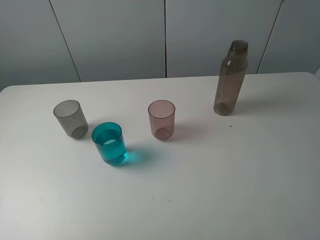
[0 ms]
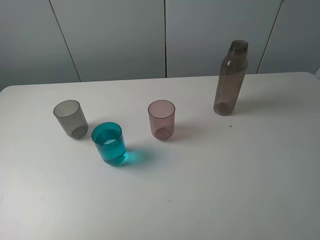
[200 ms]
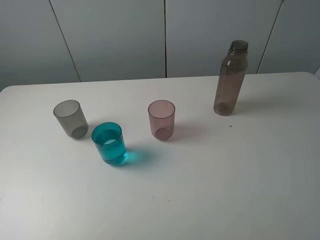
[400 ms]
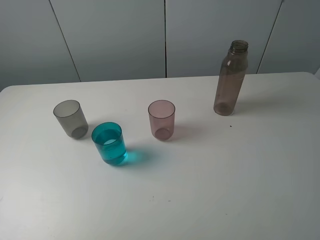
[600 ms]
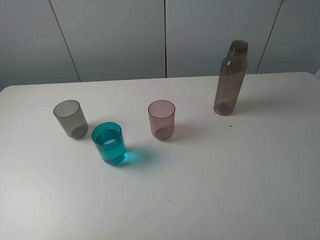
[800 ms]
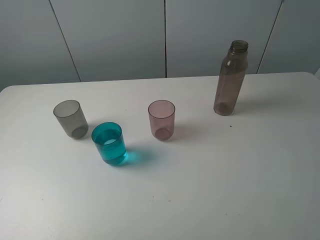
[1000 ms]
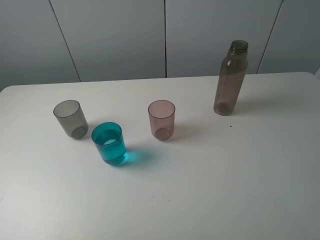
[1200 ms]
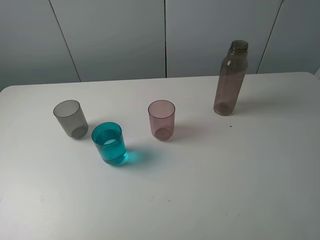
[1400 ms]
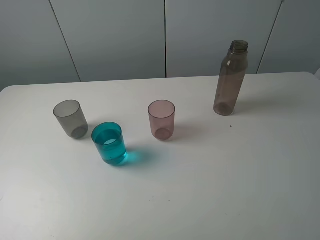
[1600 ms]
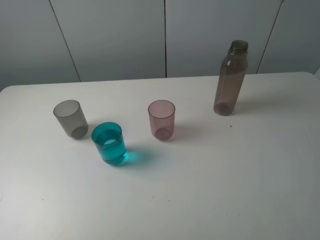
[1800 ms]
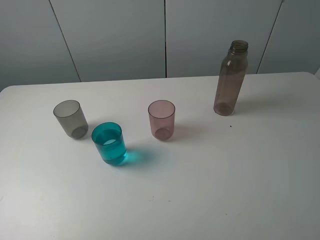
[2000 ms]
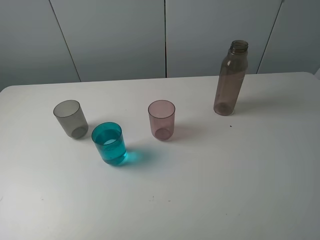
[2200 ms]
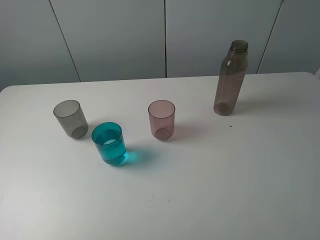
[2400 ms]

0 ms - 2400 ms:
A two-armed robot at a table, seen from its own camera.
Task of the whole recording: pick up the bottle filled with water and pour water into the middle cup of the three cups.
1200 ms - 2400 ms: Both grippers stay put.

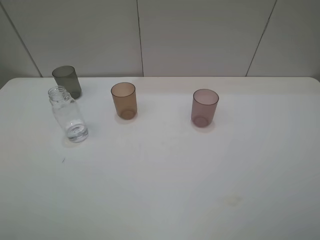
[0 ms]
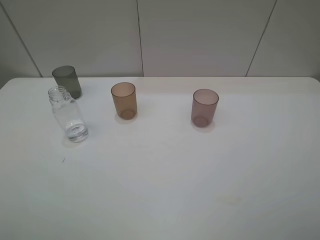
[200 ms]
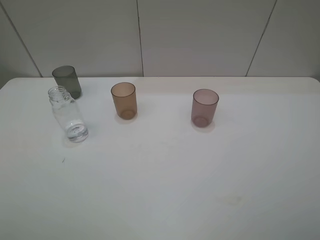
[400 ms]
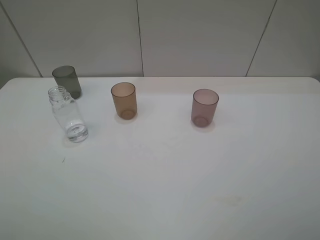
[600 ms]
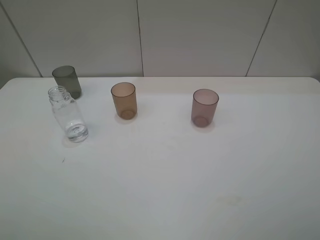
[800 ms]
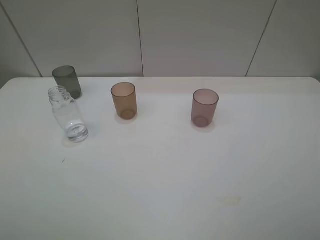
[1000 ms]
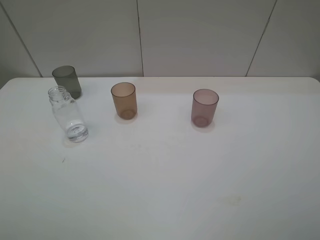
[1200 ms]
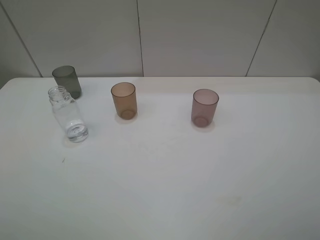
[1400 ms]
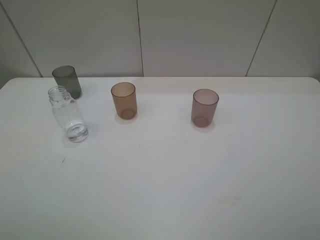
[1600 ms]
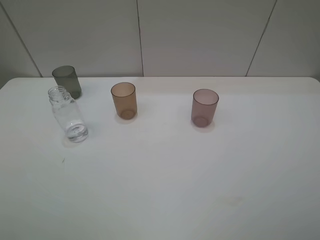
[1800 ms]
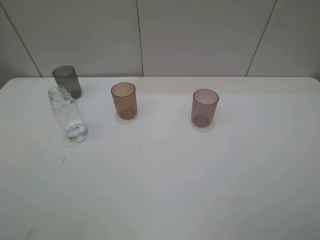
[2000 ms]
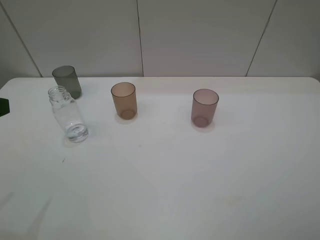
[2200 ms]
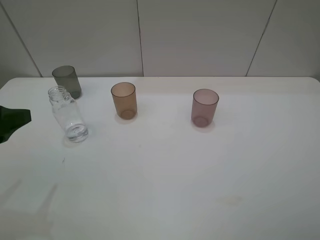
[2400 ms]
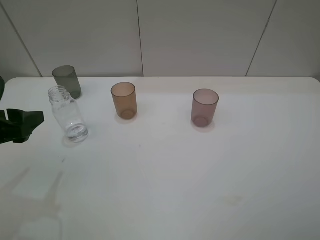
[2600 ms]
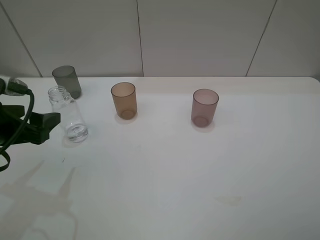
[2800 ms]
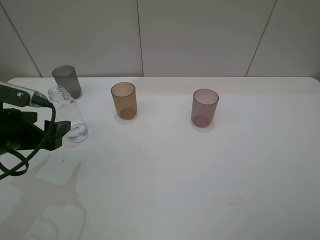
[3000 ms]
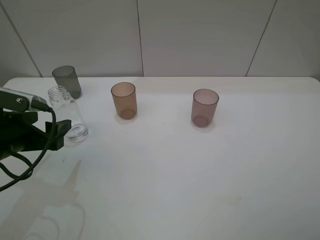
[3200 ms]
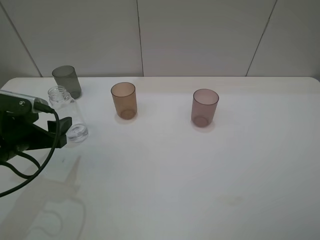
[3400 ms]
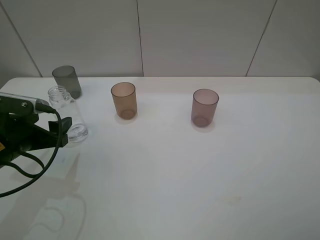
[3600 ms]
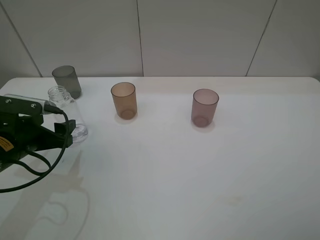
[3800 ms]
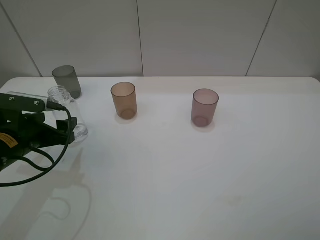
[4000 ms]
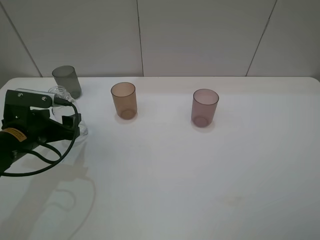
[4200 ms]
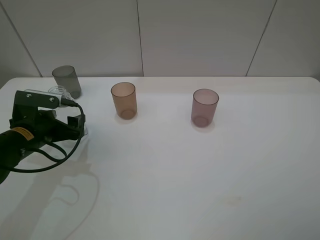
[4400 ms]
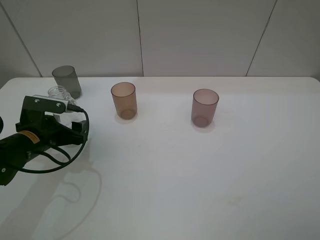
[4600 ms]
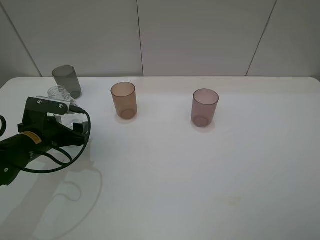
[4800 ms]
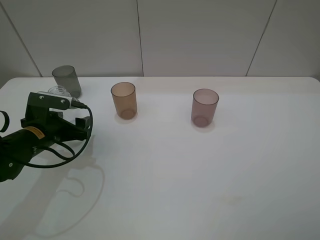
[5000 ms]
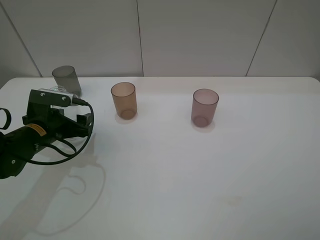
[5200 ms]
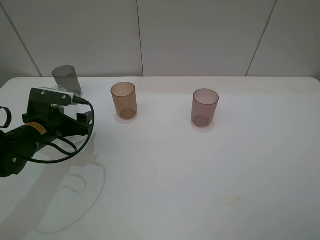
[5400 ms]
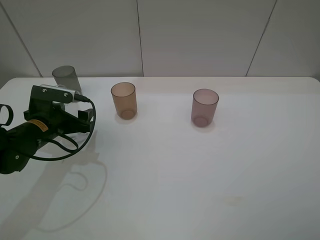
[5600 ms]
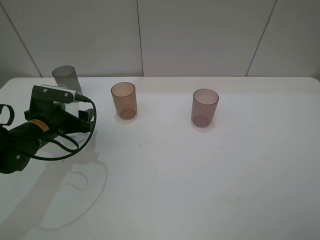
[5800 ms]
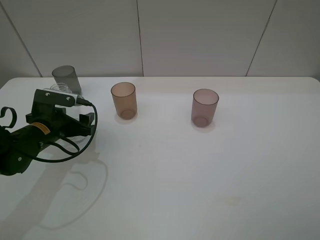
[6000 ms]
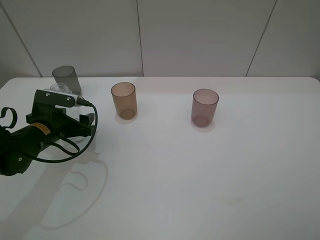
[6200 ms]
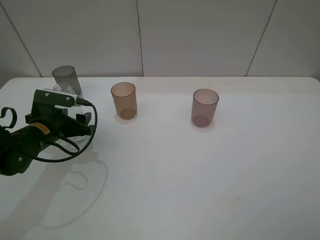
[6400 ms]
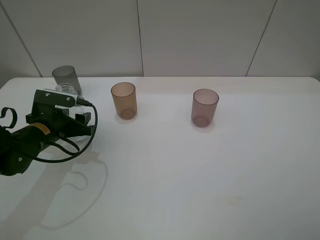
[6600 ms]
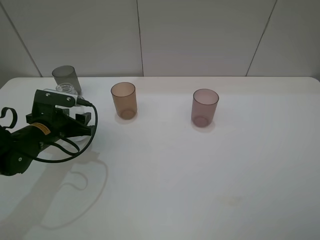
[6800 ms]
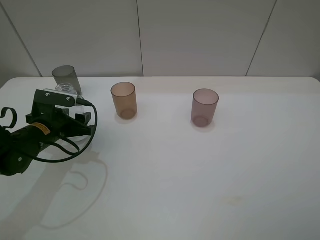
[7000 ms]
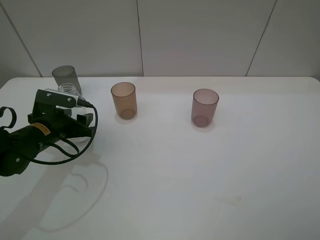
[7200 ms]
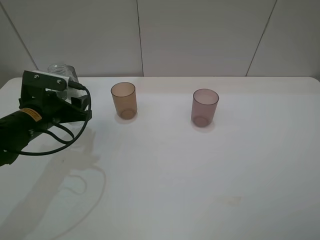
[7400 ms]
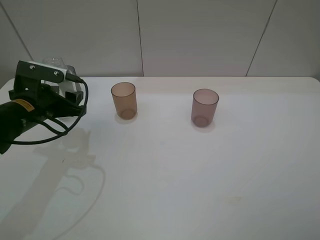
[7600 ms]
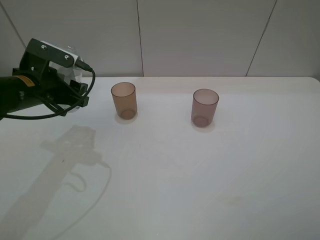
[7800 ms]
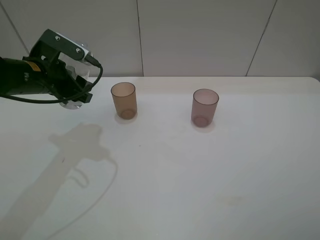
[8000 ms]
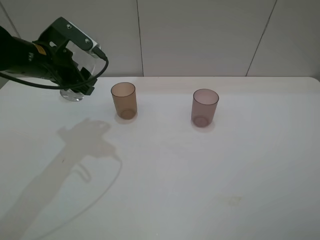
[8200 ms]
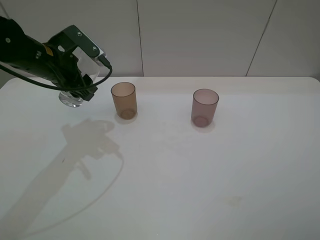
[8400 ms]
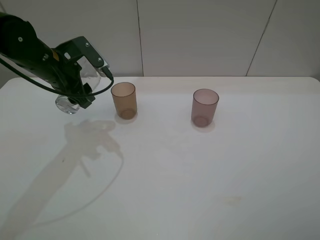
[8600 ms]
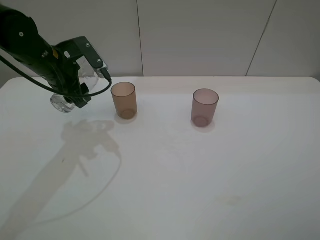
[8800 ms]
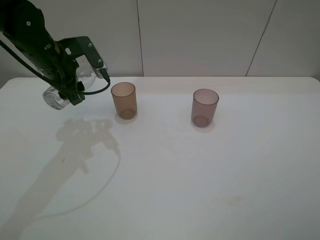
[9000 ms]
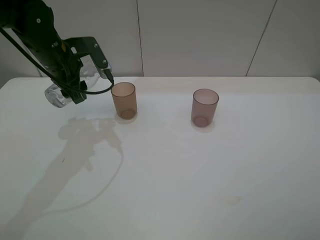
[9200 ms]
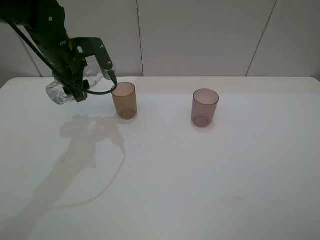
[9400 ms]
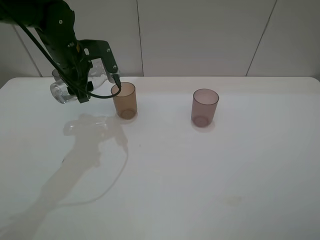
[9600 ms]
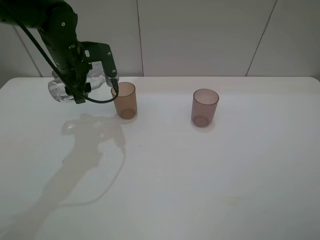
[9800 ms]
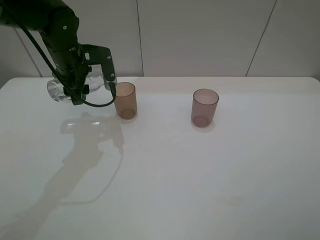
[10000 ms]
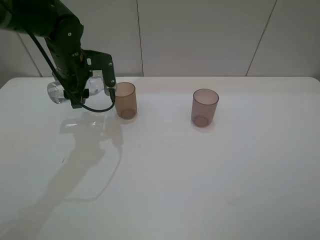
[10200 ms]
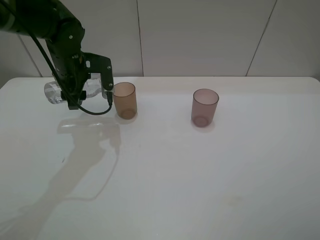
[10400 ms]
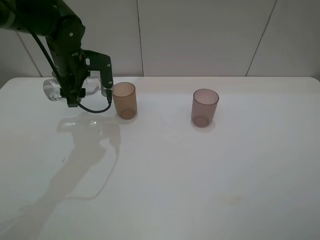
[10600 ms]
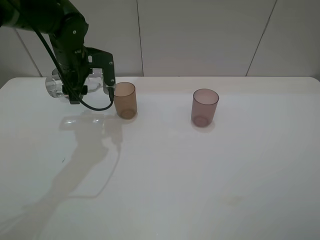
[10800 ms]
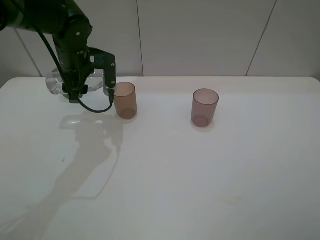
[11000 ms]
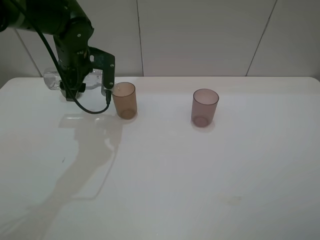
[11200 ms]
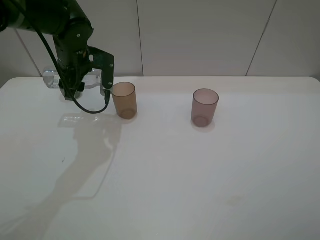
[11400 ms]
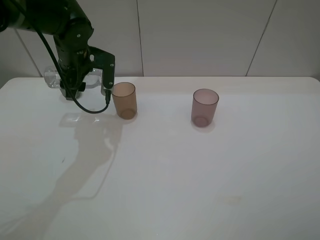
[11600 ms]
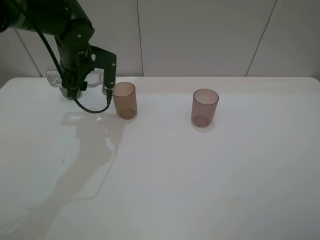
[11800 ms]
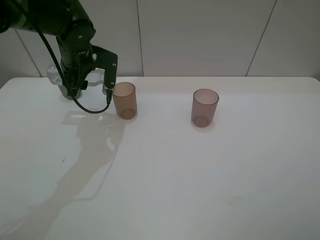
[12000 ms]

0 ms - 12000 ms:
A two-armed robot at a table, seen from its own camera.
Task of the whole recording: pick up the bottle filled with water and pour water into the middle cup of the three cups.
Step, 0 ms - 6600 ms: Grasp the transparent bottle with the left gripper.
Step, 6800 ms - 9600 ms: Pour water from transparent bottle to brown cup with the left gripper.
1600 ms - 3000 ms: The left gripper moves forward and downward, approximately 20 cm.
3000 ms - 4400 ms: The left gripper moves downward and forward, roughly 10 cm.
4400 ms - 6000 ms: The grippers stay close to where they were, moving slightly.
6000 ms - 7600 ms: The left gripper heads upward, covering some 5 cm, and closes its fingers.
7600 ms - 9000 ms: The left gripper is displaced forward and upward by approximately 10 cm.
10400 ms - 12000 ms: The grippers stay close to where they were, moving slightly.

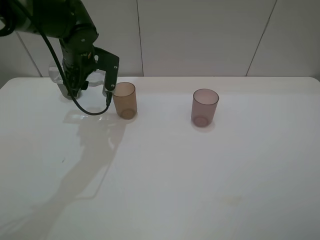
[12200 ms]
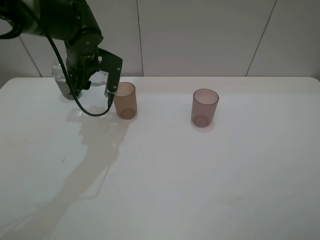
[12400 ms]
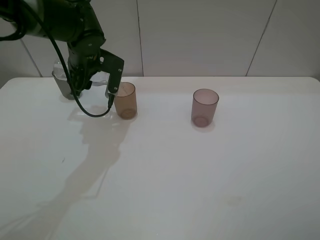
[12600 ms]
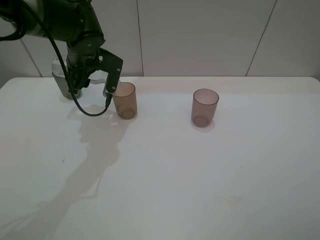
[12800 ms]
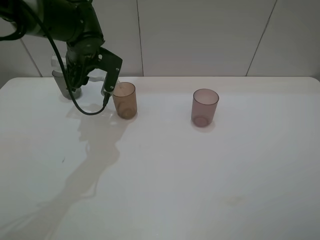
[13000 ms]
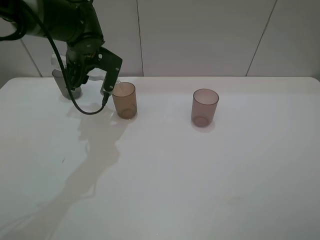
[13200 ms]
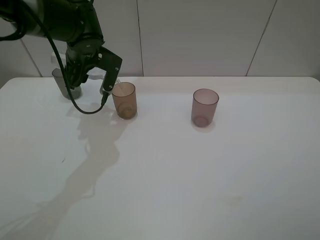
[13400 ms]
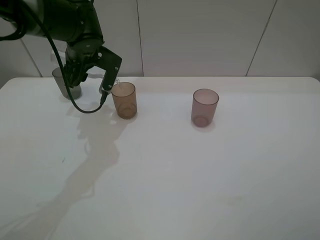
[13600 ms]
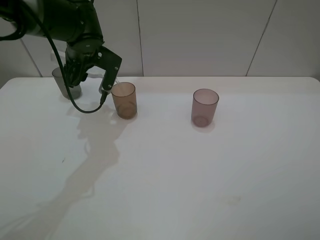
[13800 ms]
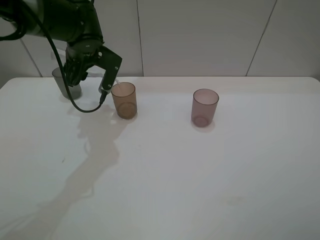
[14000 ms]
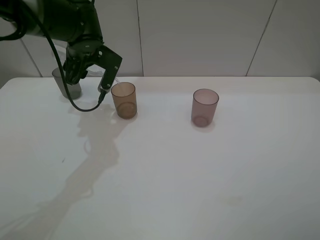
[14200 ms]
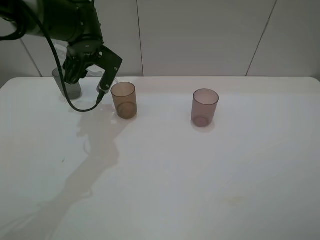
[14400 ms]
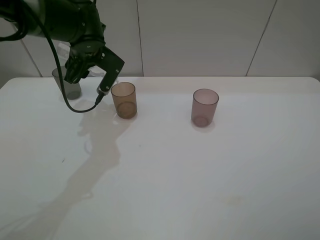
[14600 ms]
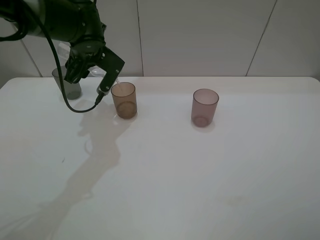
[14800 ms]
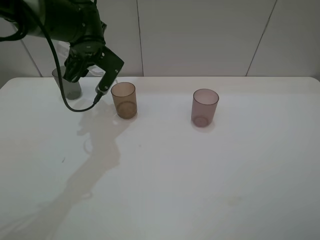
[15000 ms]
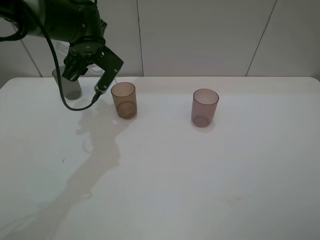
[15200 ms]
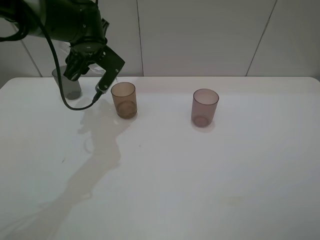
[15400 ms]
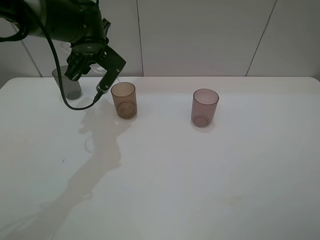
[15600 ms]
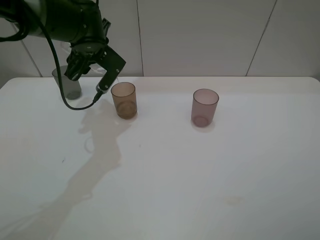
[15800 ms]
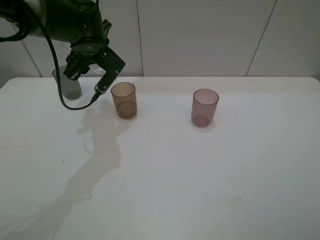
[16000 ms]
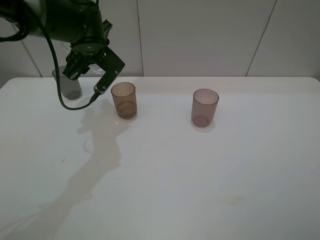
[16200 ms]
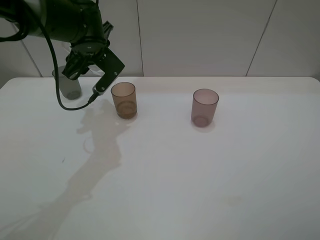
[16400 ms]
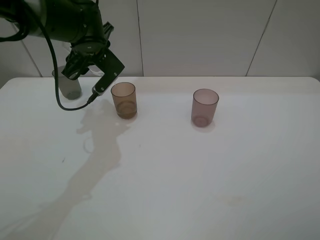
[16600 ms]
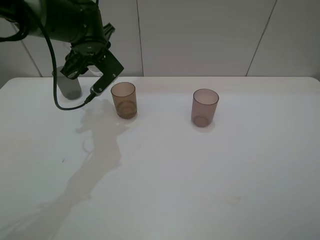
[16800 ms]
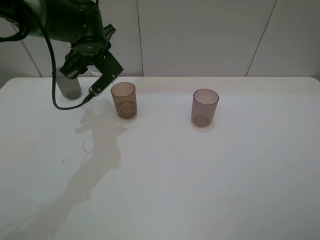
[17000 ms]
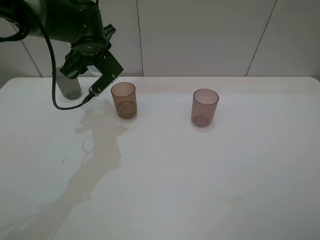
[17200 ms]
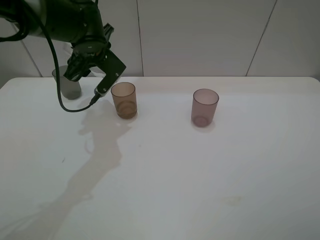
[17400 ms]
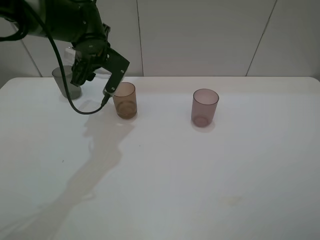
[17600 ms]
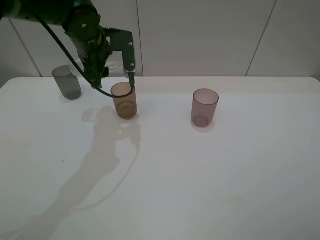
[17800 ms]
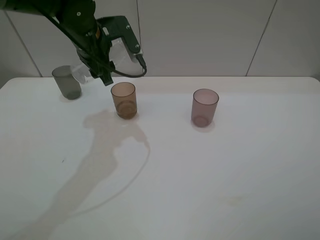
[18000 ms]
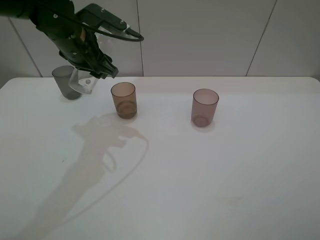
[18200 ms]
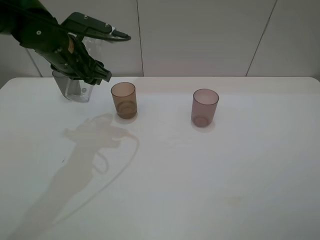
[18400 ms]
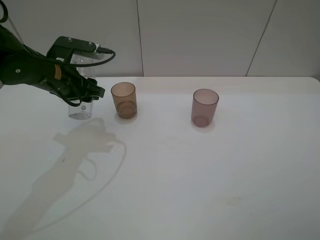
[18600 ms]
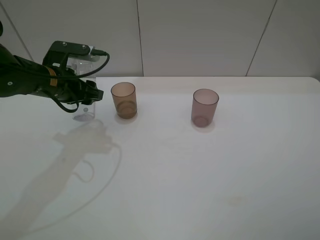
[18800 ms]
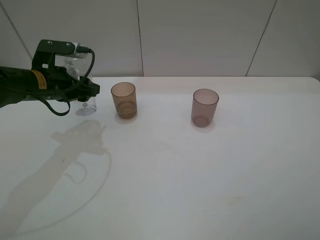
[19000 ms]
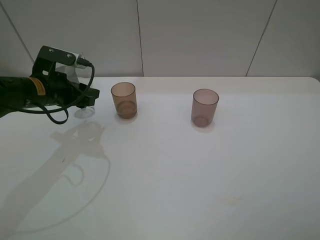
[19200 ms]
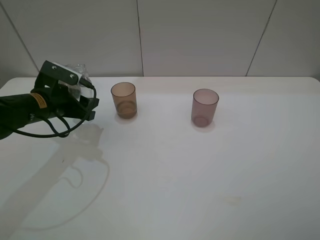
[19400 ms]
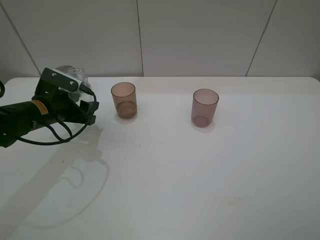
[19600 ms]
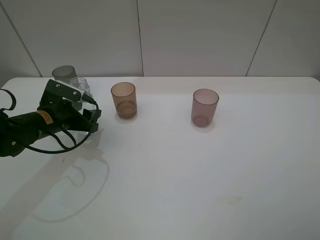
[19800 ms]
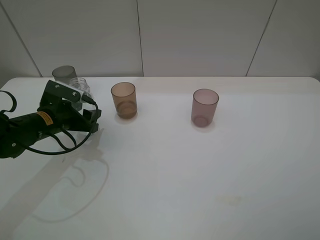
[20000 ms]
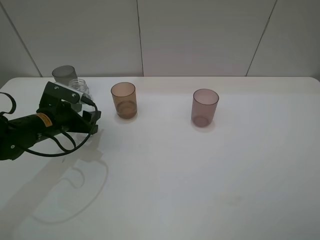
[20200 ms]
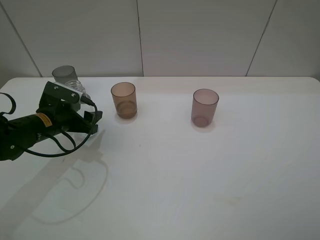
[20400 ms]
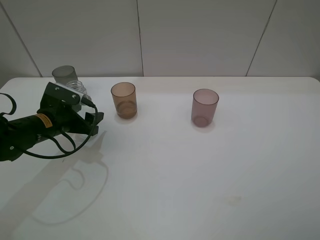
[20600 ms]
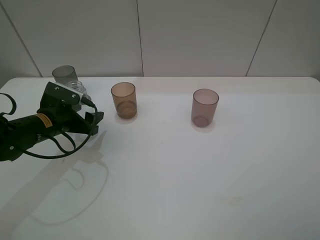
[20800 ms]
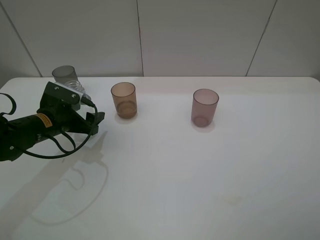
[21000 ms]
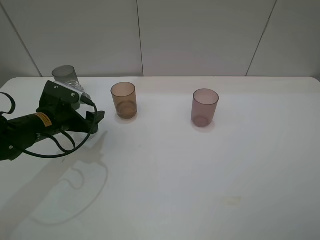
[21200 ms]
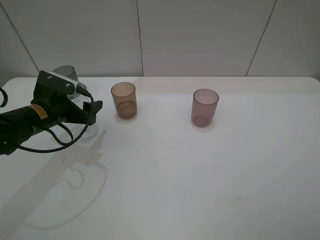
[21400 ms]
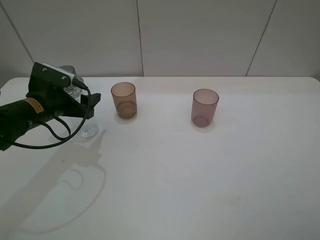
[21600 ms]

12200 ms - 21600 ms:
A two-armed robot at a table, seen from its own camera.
Task of the whole recording: pick up the bottle filled with water and pour water into the middle cup of the three cups.
12200 ms - 13800 ms: There are only small adjustments of the grippers.
13800 ms - 15400 ms: There are only small adjustments of the grippers.
15400 ms - 17000 ms: The grippers stay close to where they were, moving slightly.
17000 ms - 18400 ms: The left gripper shifts roughly 5 cm backward.
18400 ms - 20000 ms: The left gripper is displaced downward and to the left by about 15 cm.
20000 ms - 21600 ms: The left gripper opens up.
